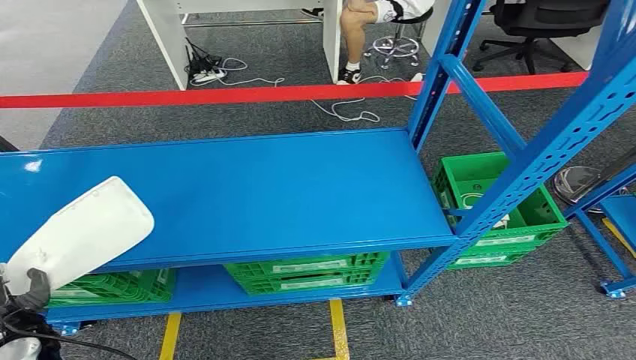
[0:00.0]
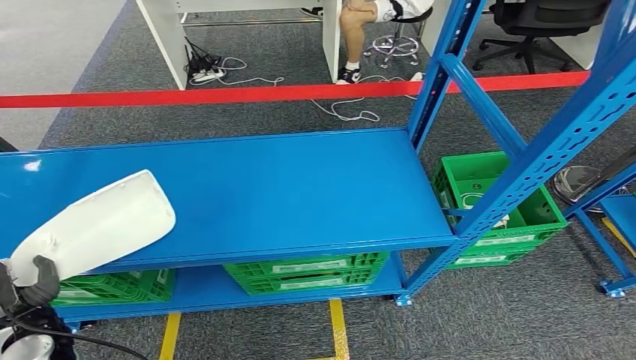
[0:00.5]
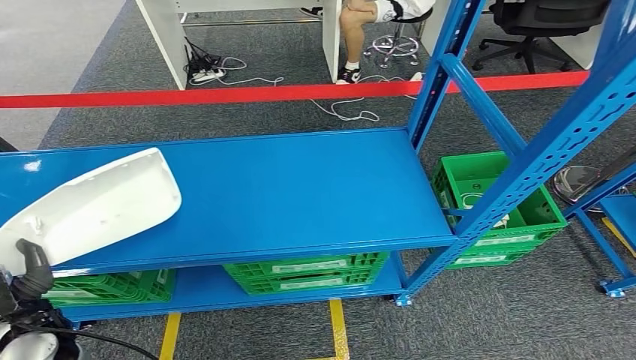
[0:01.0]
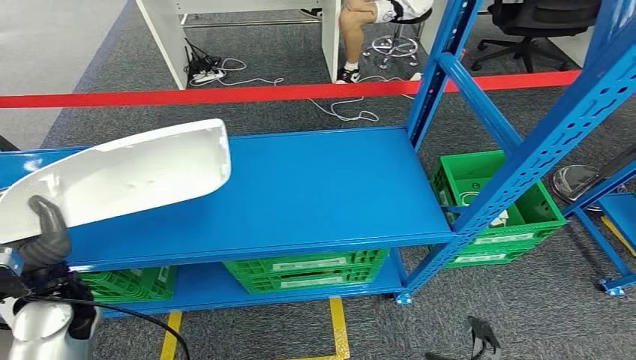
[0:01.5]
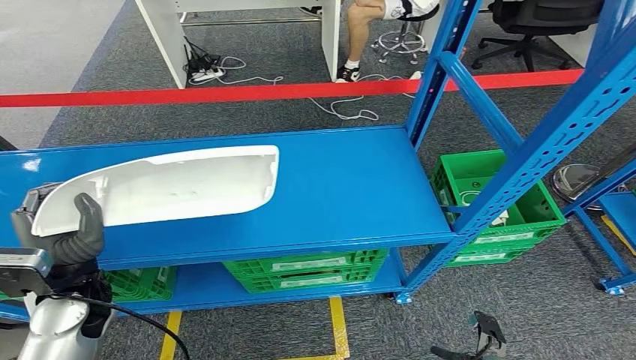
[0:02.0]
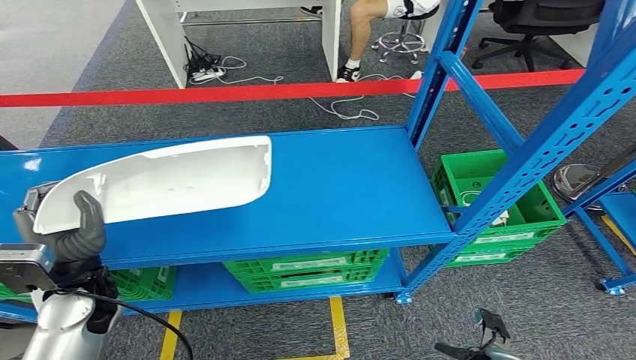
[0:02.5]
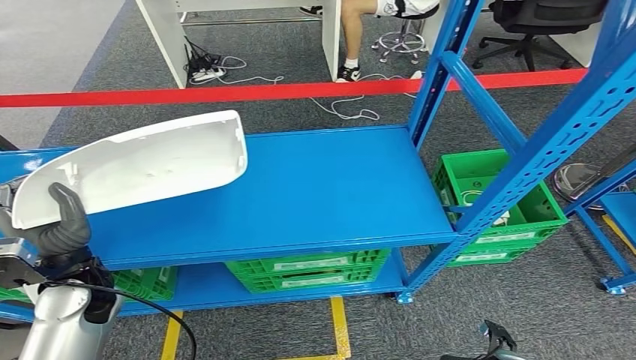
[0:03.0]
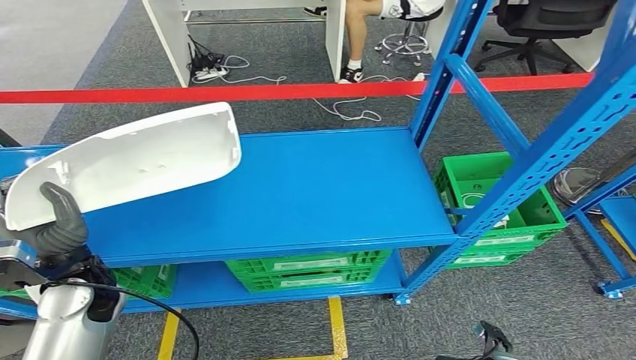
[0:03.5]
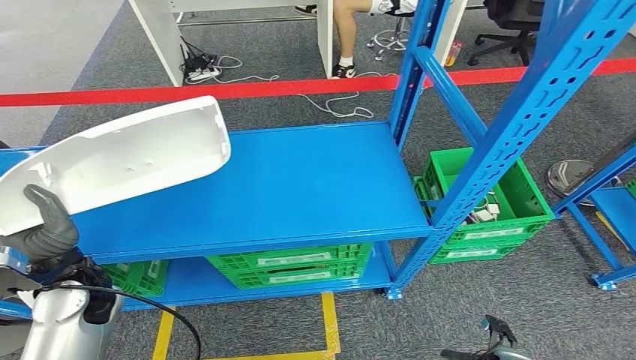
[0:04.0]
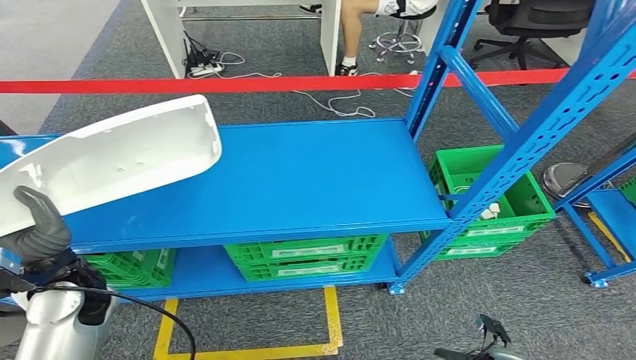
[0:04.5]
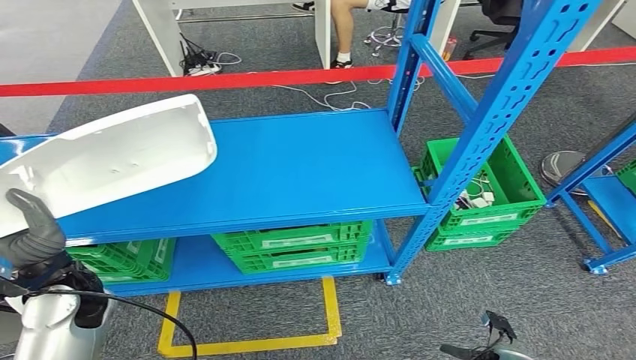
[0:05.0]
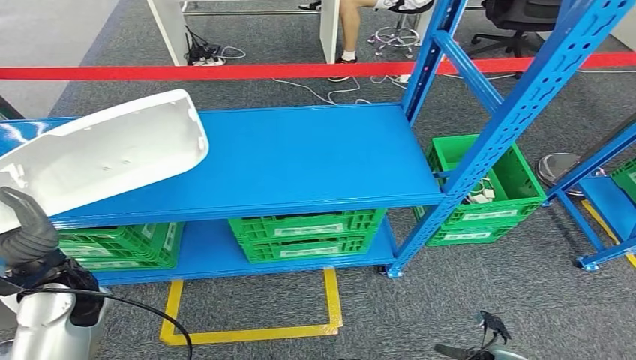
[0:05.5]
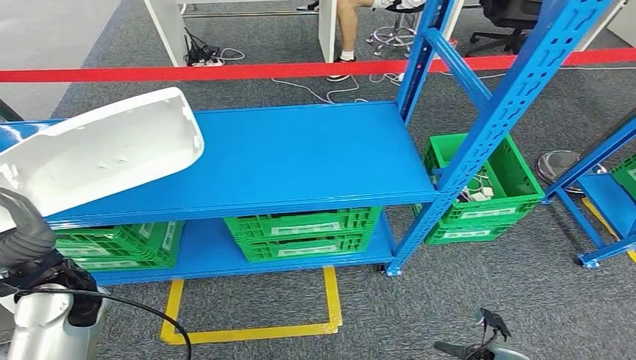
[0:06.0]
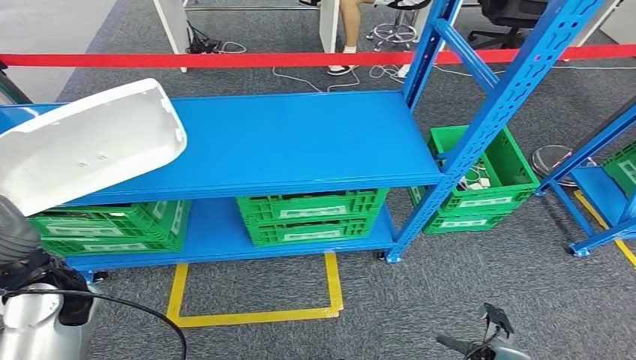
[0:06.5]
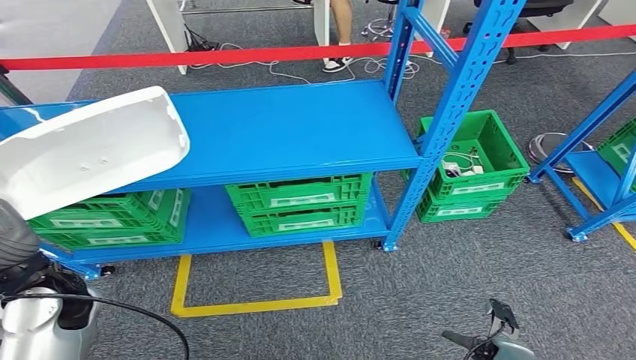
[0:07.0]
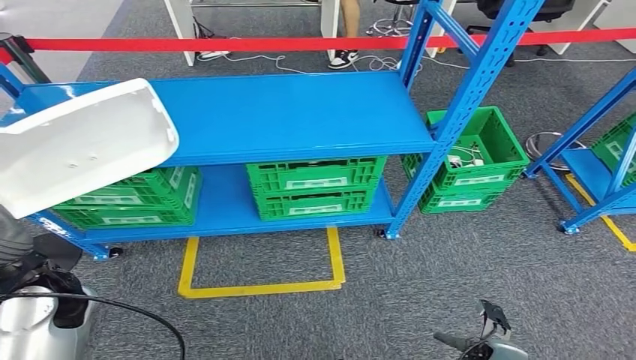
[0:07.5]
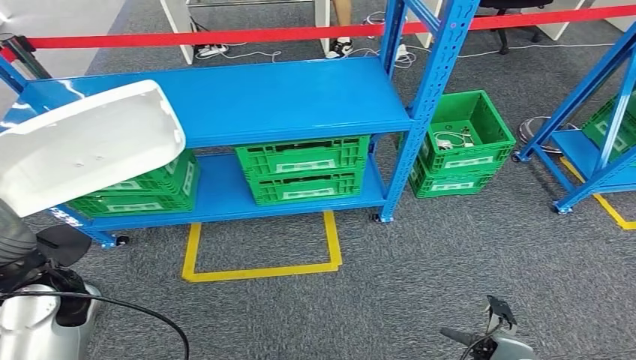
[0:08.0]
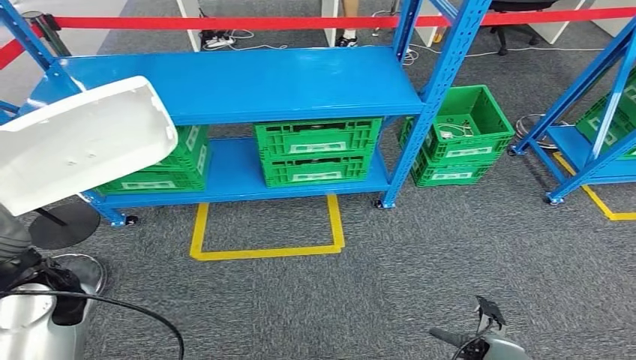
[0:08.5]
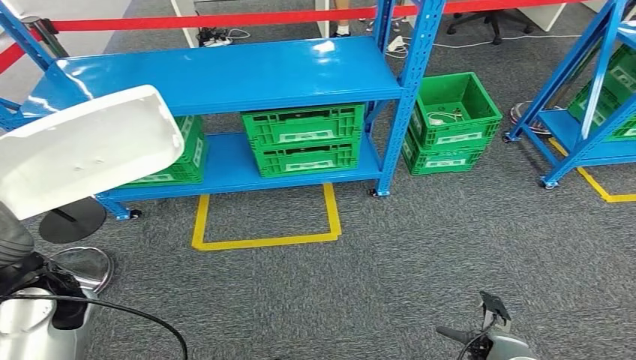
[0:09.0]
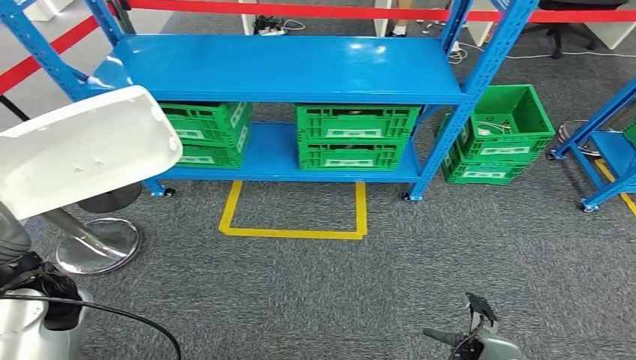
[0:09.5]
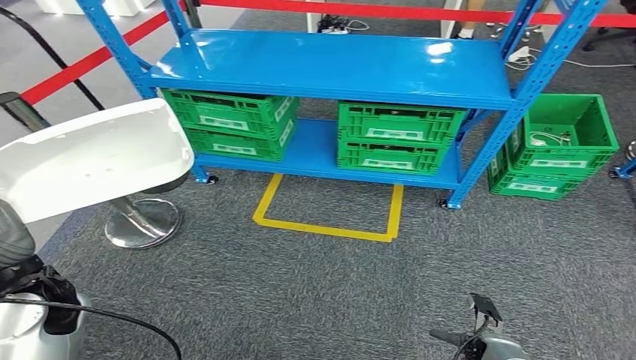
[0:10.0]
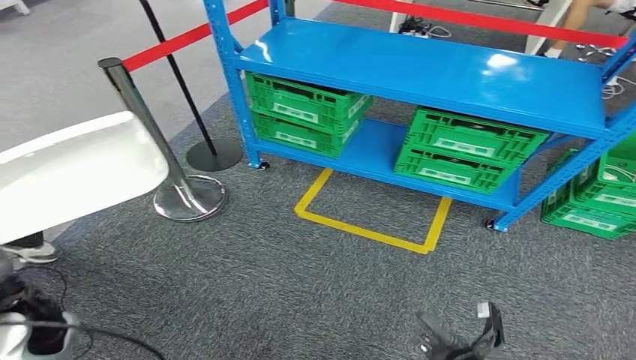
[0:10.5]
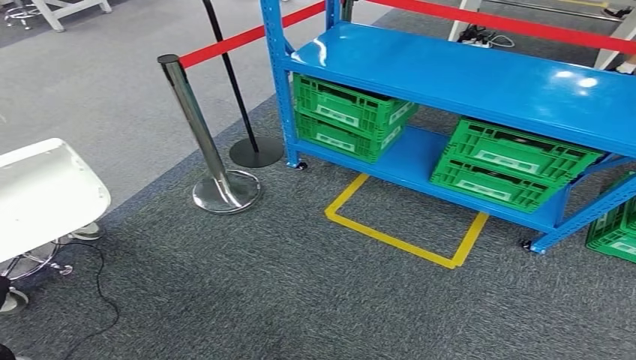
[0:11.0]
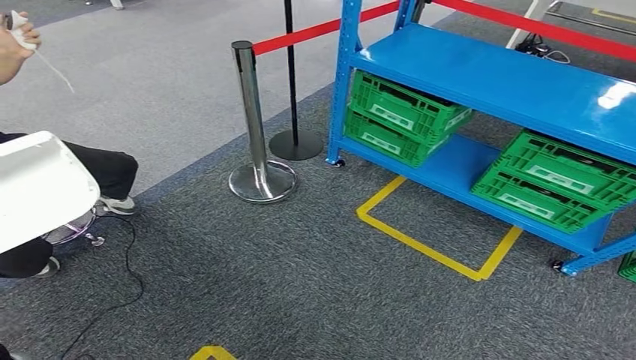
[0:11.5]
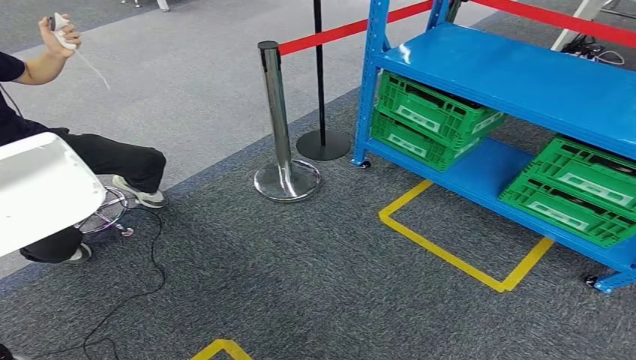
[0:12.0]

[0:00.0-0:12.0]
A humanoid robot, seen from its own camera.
Step, 0:00.0 to 0:04.5: Pick up the small parts from the shelf.

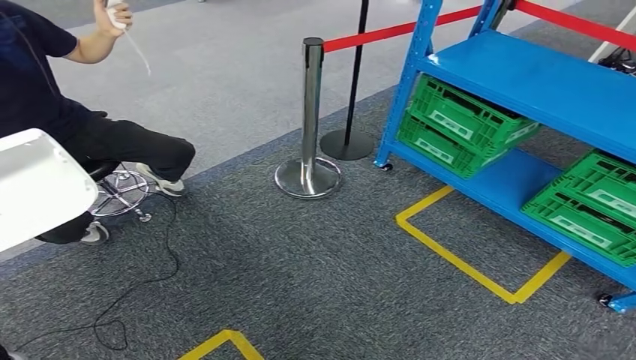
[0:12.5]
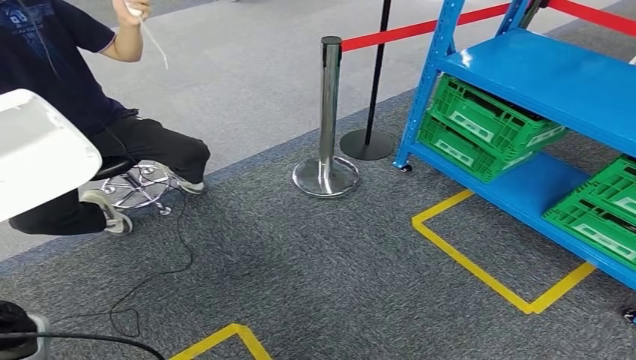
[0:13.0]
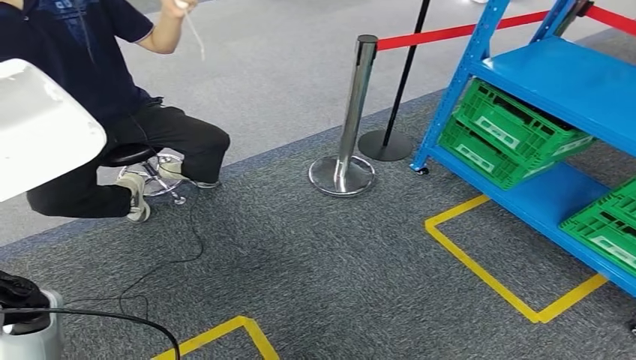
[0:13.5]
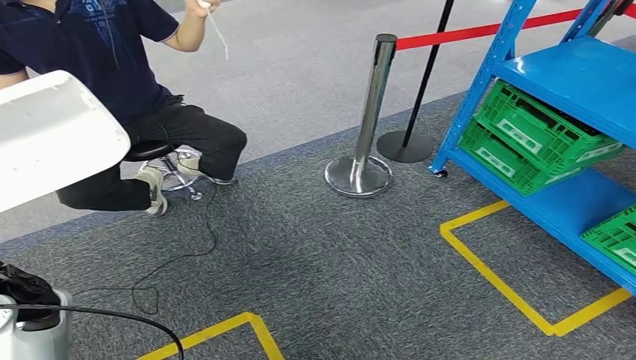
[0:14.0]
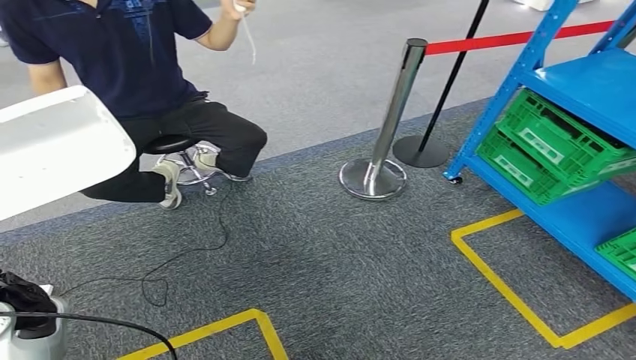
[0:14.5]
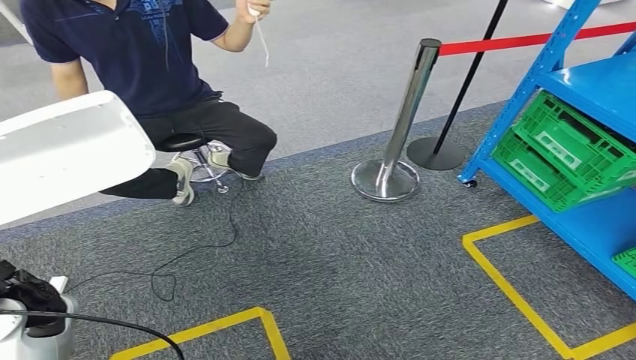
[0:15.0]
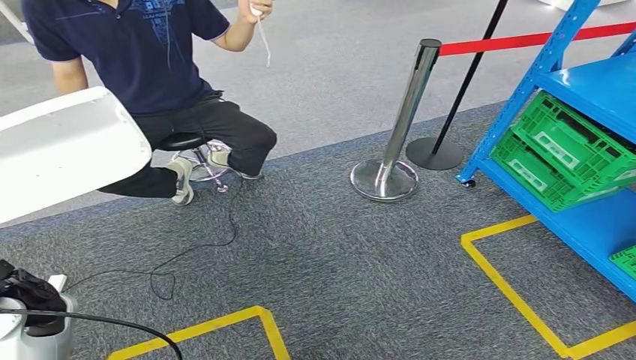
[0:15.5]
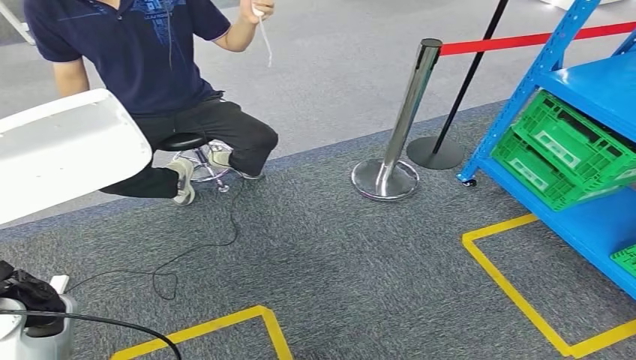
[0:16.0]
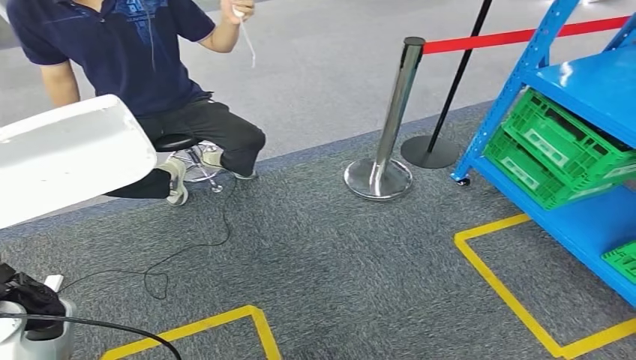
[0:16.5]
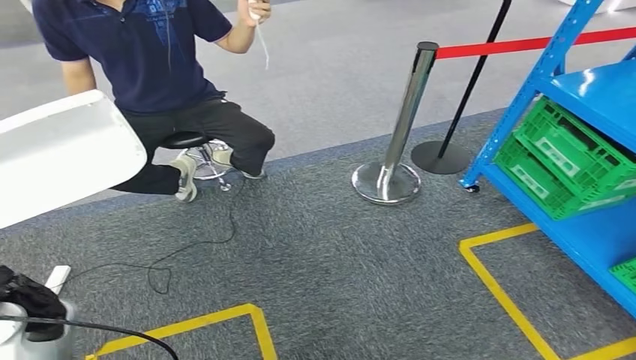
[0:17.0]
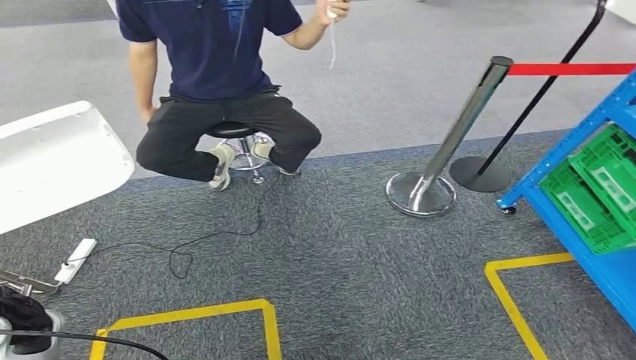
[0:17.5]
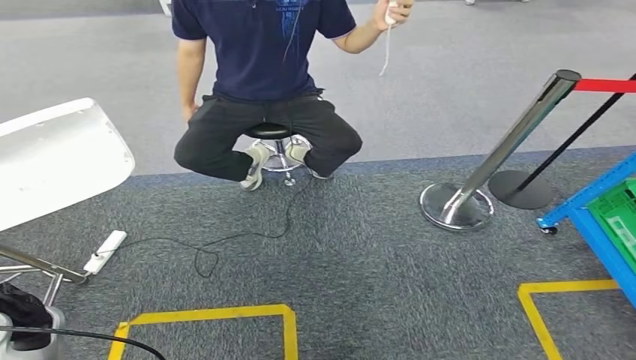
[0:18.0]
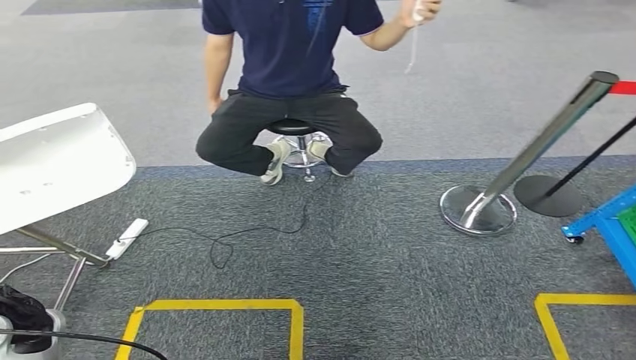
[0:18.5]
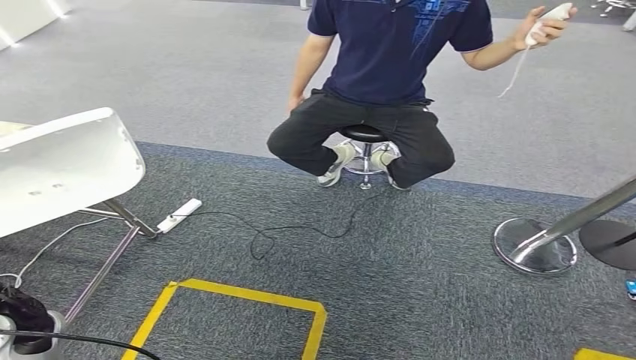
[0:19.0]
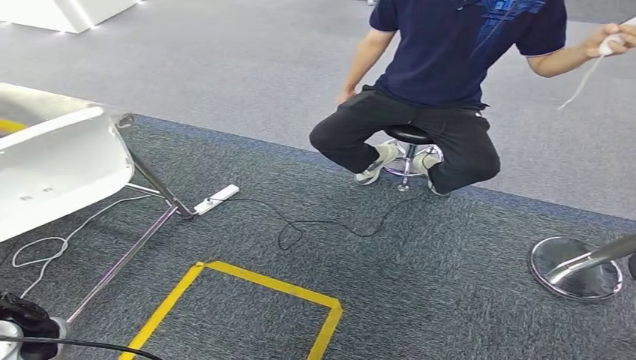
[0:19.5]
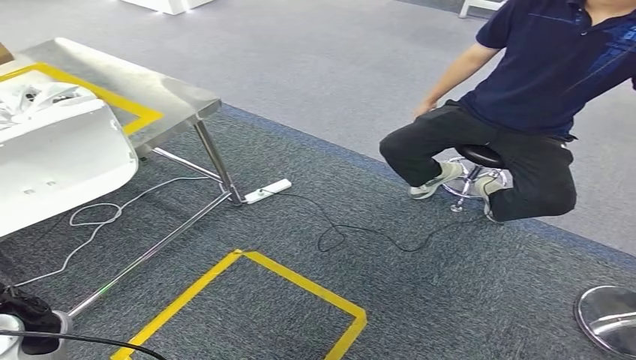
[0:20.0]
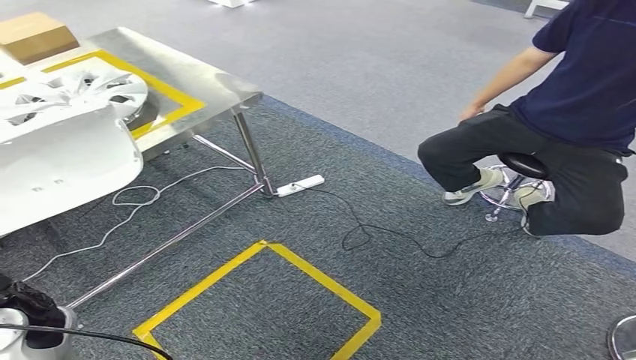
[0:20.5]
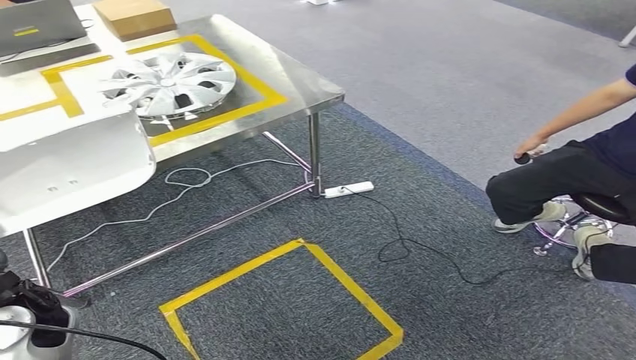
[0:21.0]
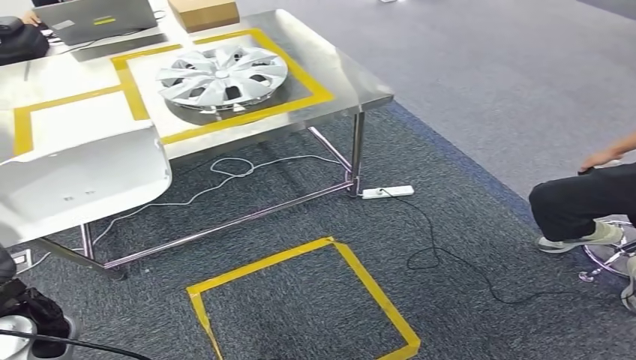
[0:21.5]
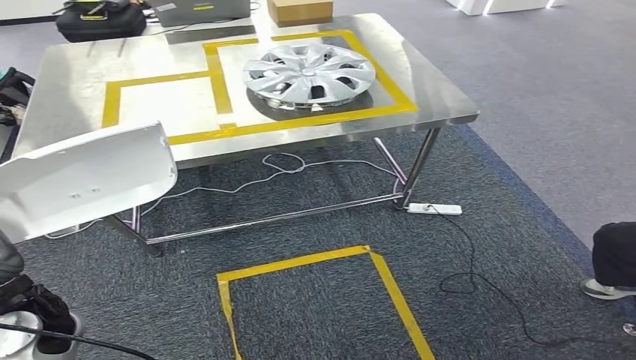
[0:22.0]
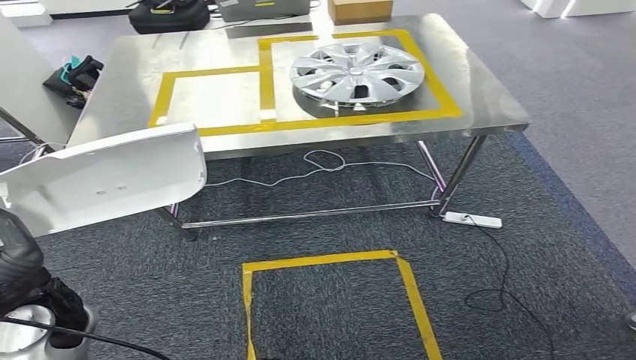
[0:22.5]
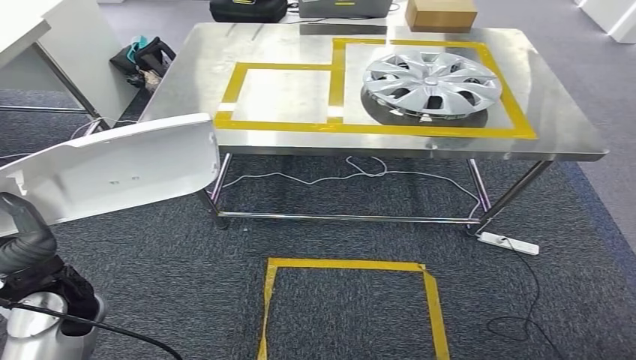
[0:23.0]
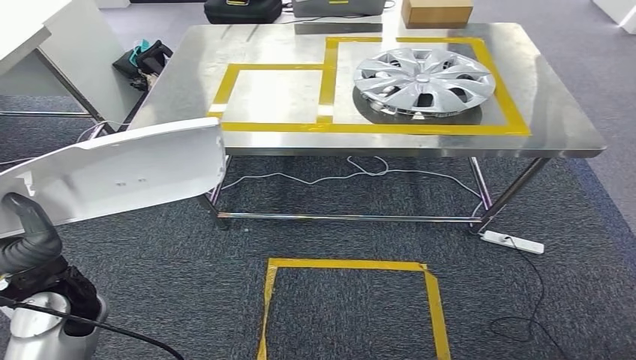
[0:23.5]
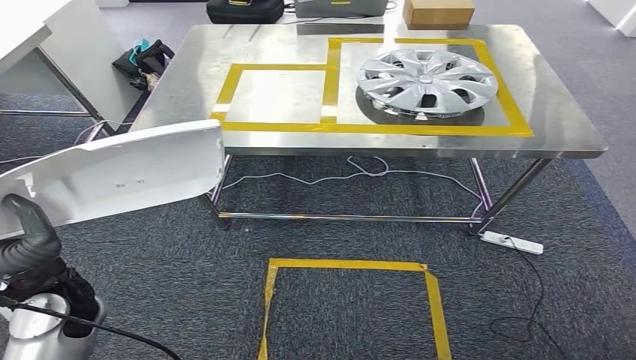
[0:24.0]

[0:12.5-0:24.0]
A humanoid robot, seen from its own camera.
Step, 0:12.5 to 0:21.5: Move the small parts to the workbench.
